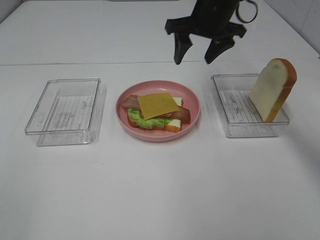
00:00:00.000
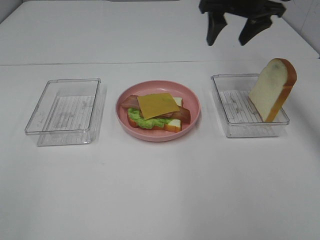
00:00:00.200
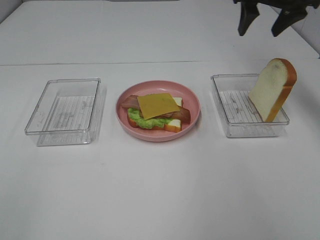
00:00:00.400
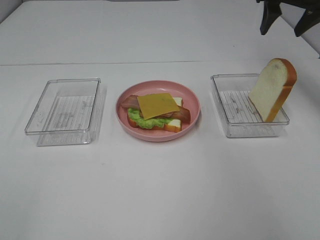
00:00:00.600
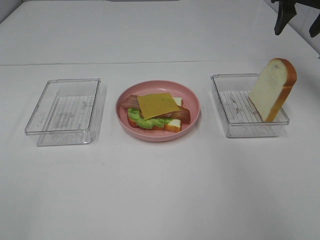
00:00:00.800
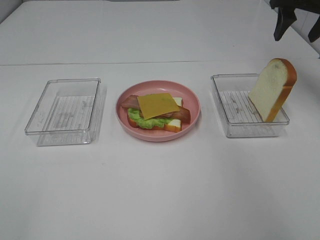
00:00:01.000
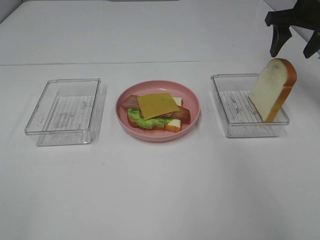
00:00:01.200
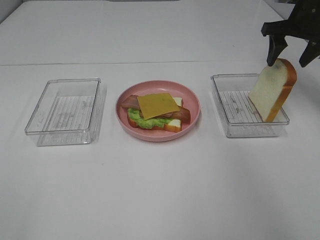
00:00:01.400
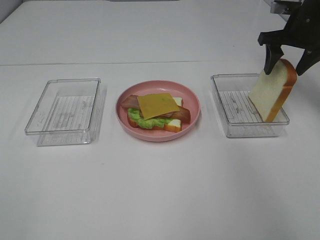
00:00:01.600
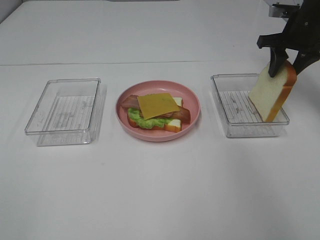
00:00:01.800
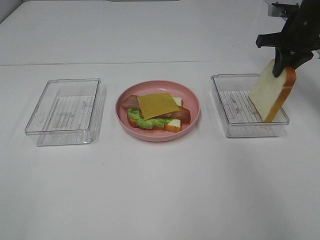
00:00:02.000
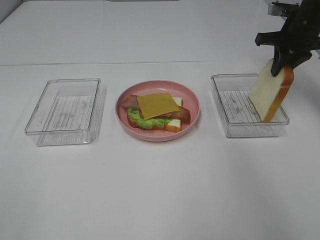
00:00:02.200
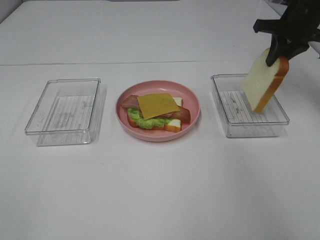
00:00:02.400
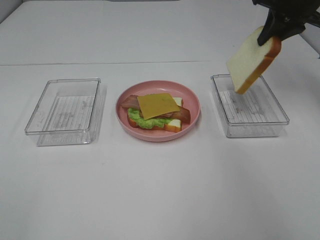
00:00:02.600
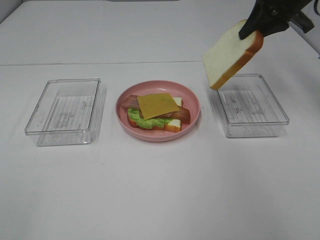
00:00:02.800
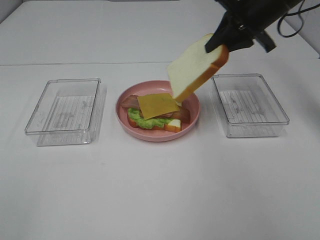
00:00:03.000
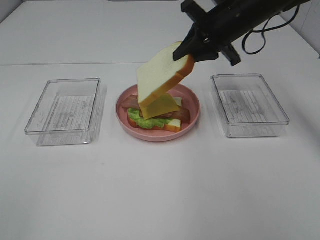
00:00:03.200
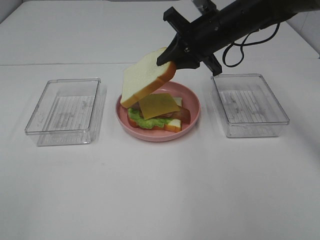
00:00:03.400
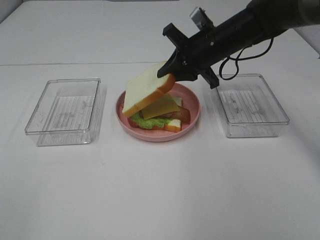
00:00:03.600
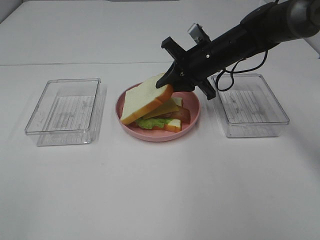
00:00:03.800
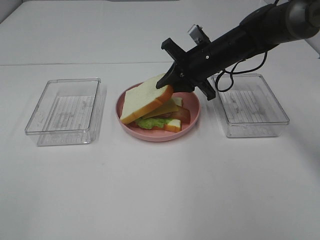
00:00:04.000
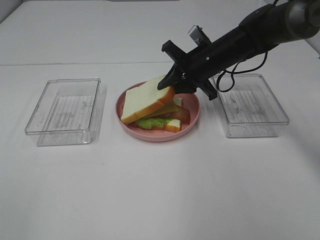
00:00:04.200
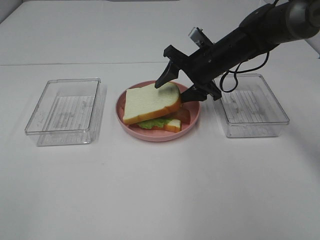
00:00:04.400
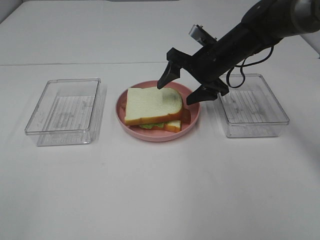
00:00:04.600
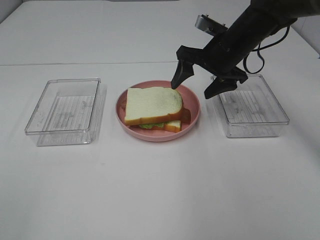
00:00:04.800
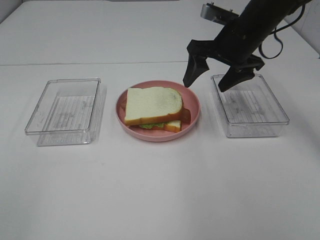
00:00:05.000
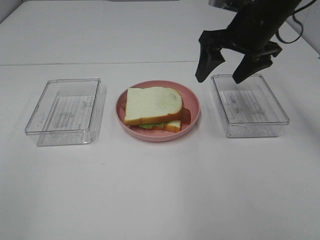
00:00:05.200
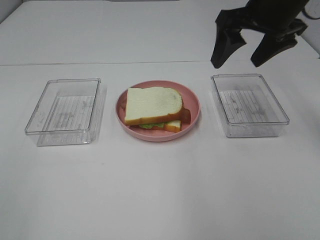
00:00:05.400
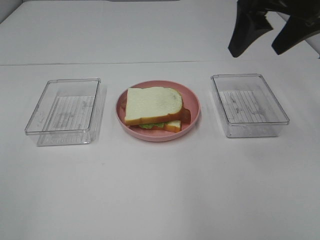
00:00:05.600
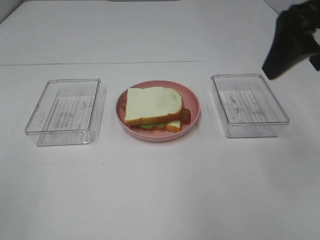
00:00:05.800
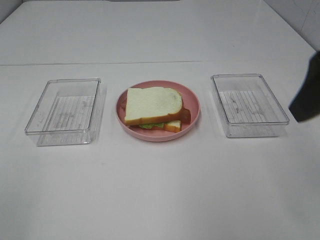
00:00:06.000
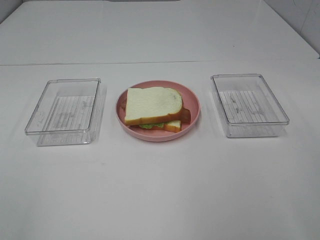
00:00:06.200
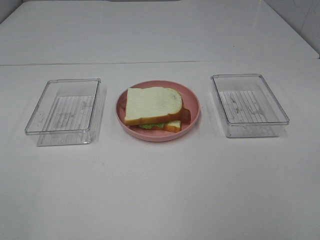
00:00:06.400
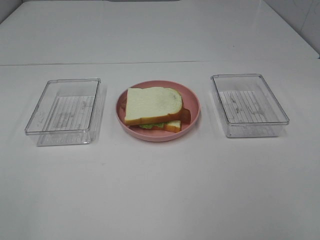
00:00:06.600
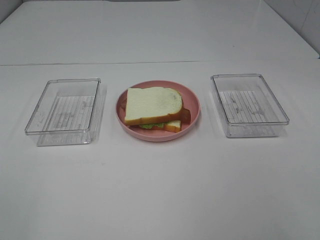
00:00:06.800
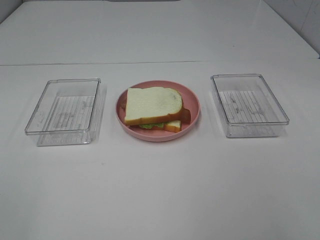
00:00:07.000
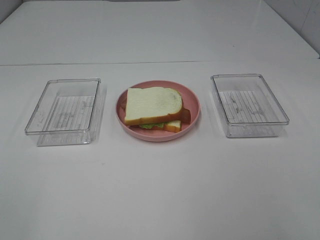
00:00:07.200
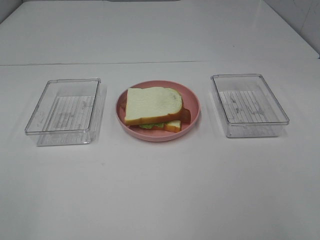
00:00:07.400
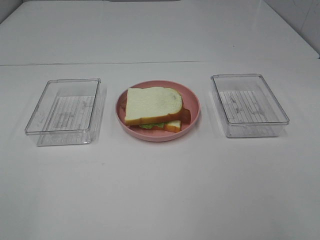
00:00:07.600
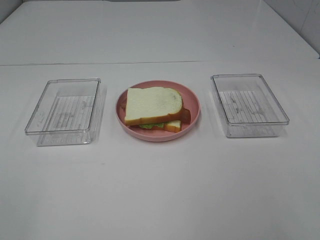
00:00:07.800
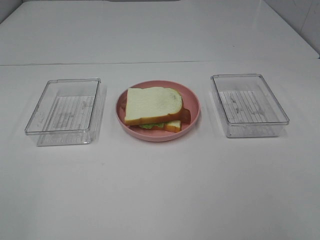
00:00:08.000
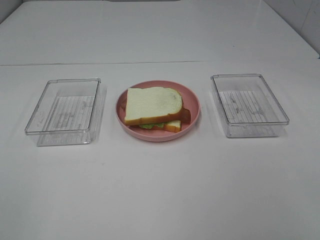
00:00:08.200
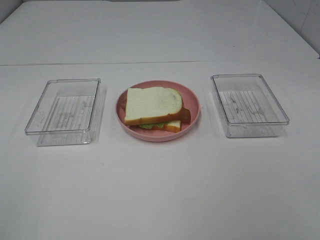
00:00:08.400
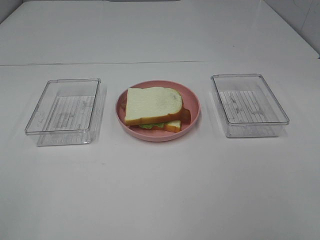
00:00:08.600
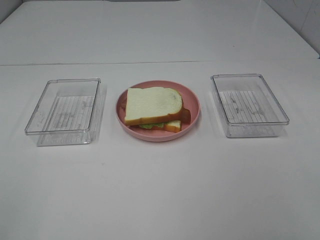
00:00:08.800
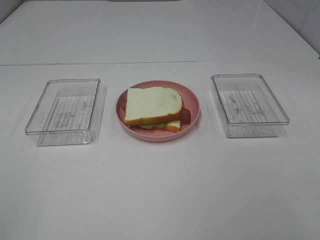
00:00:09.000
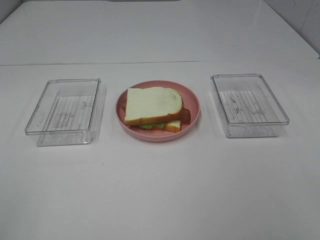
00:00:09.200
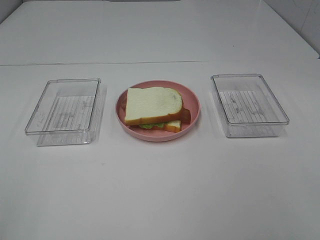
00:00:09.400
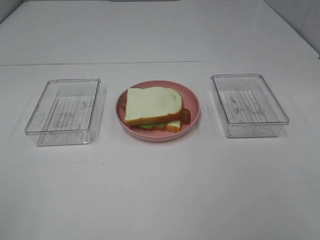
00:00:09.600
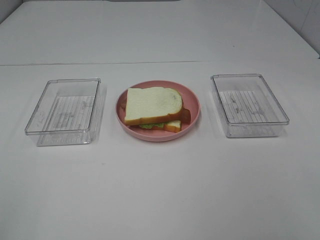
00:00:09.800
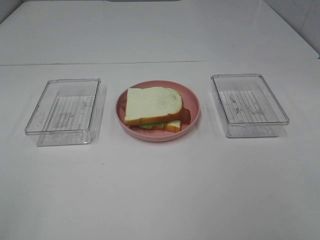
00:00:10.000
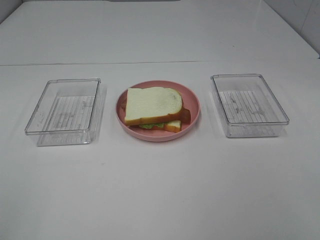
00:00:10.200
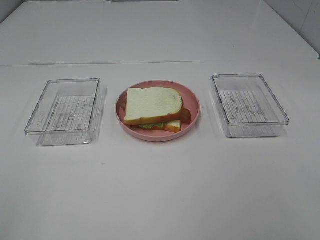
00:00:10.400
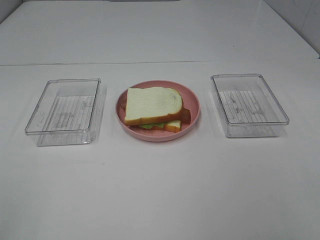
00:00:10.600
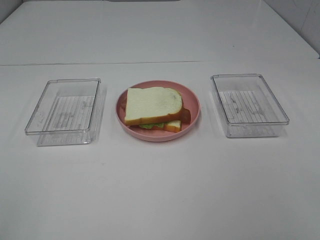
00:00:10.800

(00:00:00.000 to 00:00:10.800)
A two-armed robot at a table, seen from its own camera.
Task of the whole recording: Make sandwiches.
Step, 00:00:00.000 - 00:00:02.200: Right hand:grab the bread slice.
Step, 00:00:02.400 - 00:00:04.800: Right hand:place the bread slice on the cheese slice.
00:00:00.000 - 00:00:01.600: The right gripper shifts about 20 cm to the right.
00:00:01.600 - 00:00:03.000: The right gripper heads to the left, covering approximately 10 cm, and closes up.
00:00:03.000 - 00:00:04.600: The right gripper is displaced downward and to the left by roughly 10 cm, and opens its fingers.
00:00:04.600 - 00:00:06.200: The right gripper goes some 35 cm backward and upward.
00:00:09.200 - 00:00:10.800: Neither gripper changes place.

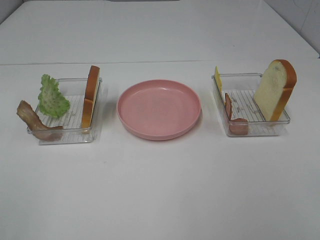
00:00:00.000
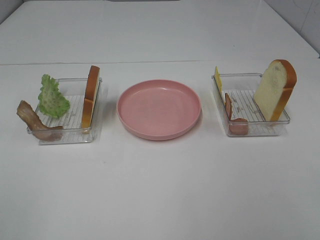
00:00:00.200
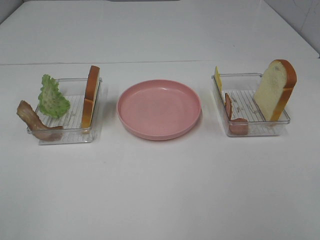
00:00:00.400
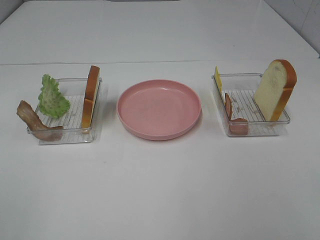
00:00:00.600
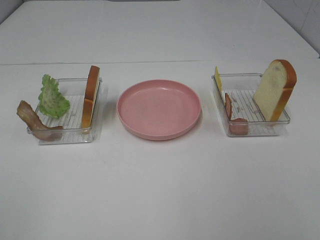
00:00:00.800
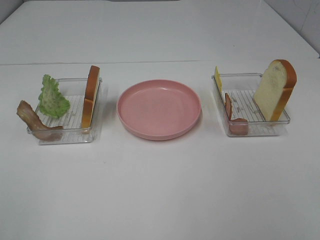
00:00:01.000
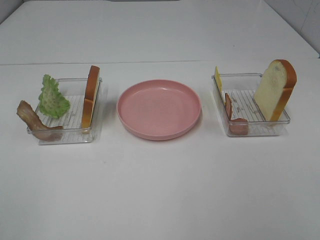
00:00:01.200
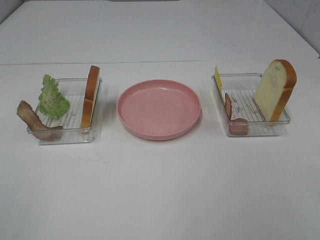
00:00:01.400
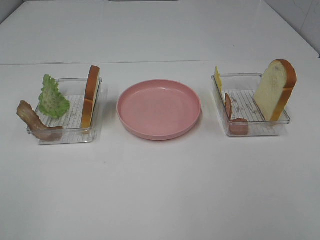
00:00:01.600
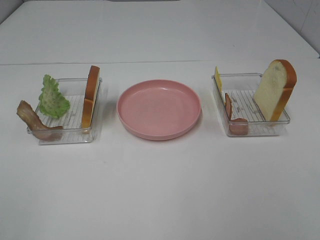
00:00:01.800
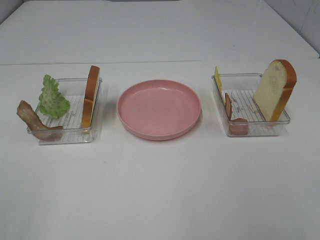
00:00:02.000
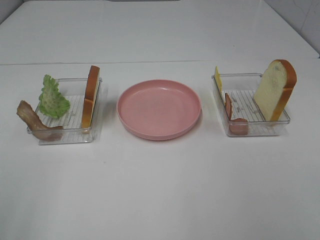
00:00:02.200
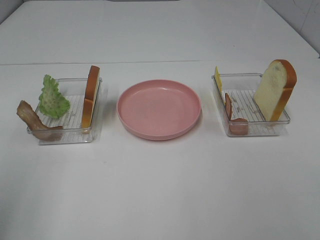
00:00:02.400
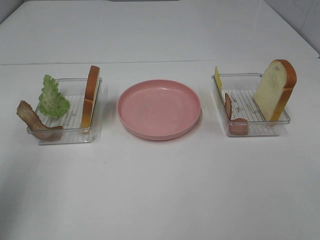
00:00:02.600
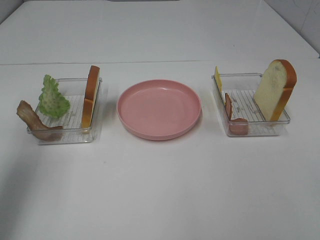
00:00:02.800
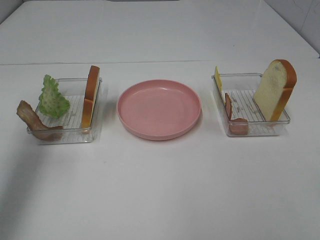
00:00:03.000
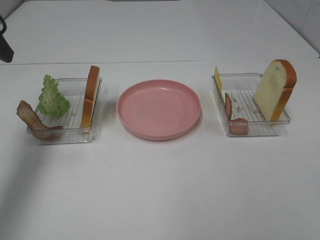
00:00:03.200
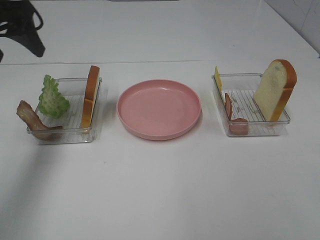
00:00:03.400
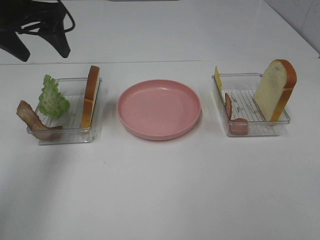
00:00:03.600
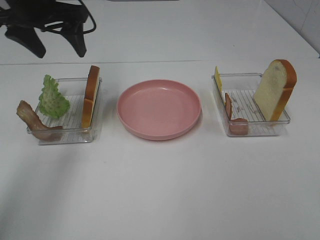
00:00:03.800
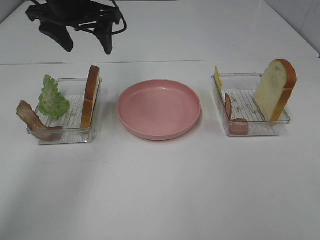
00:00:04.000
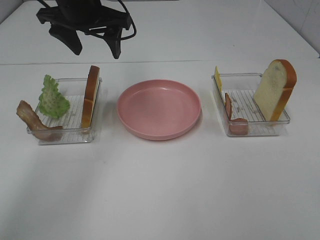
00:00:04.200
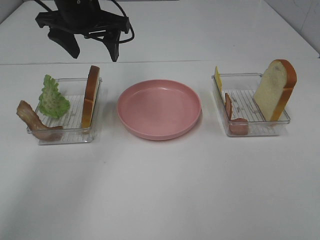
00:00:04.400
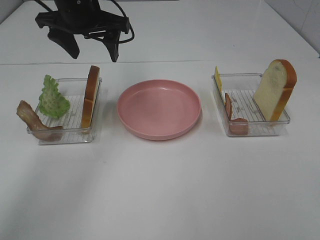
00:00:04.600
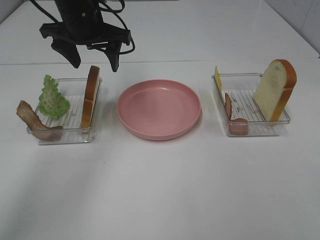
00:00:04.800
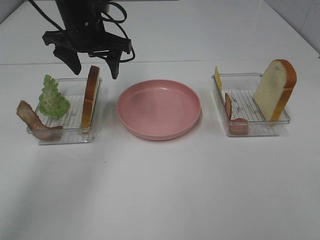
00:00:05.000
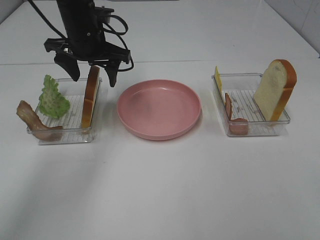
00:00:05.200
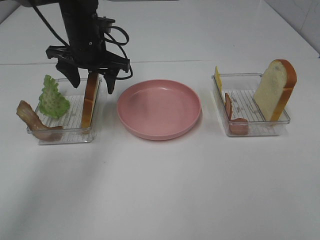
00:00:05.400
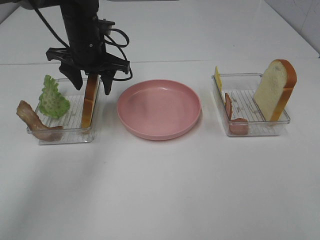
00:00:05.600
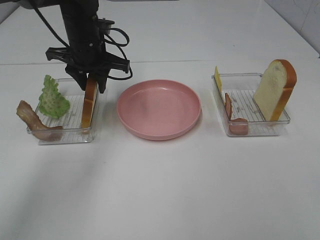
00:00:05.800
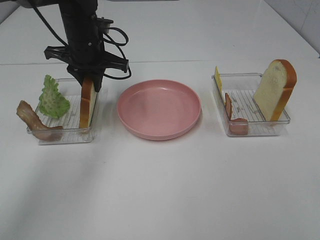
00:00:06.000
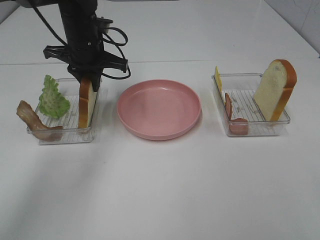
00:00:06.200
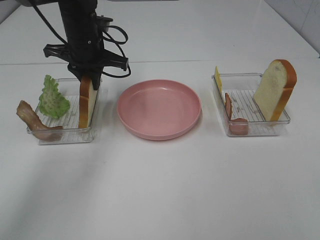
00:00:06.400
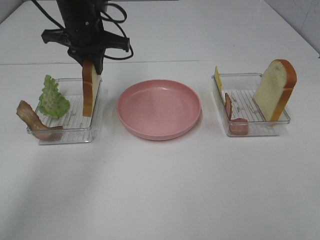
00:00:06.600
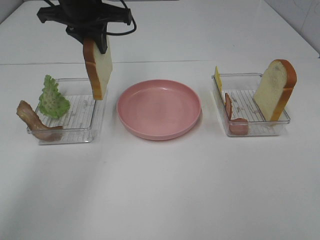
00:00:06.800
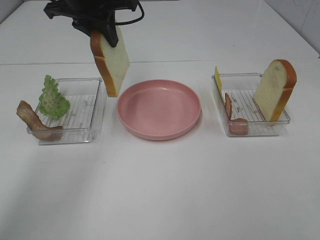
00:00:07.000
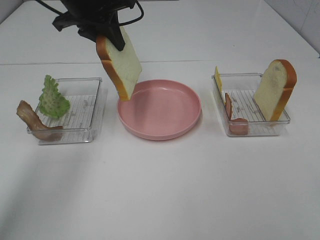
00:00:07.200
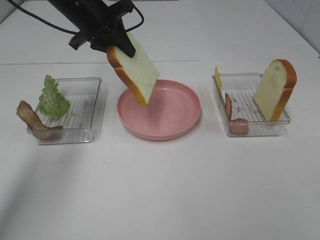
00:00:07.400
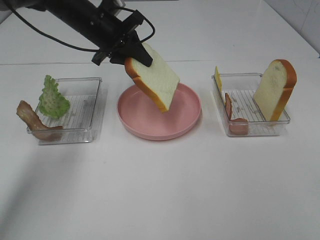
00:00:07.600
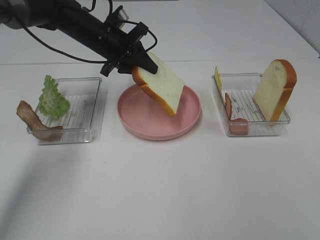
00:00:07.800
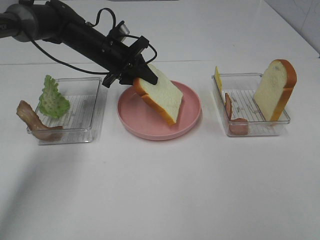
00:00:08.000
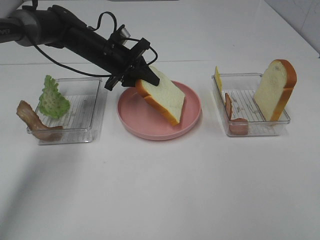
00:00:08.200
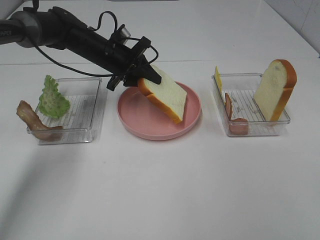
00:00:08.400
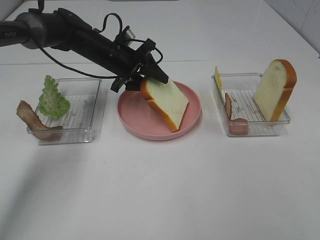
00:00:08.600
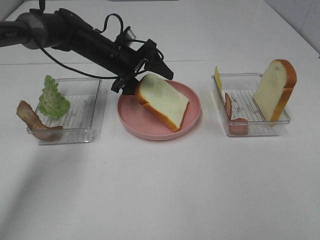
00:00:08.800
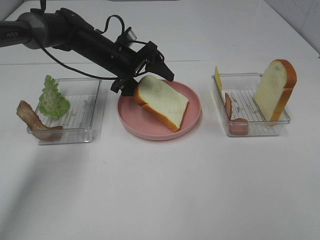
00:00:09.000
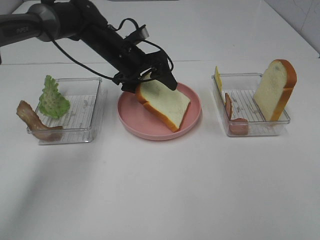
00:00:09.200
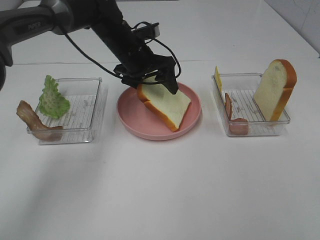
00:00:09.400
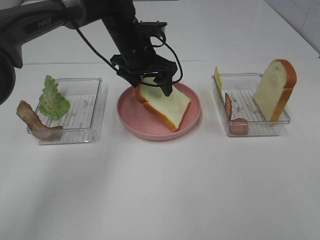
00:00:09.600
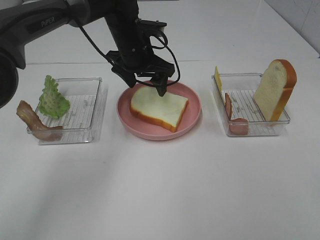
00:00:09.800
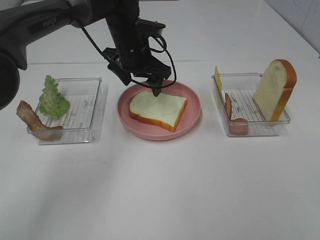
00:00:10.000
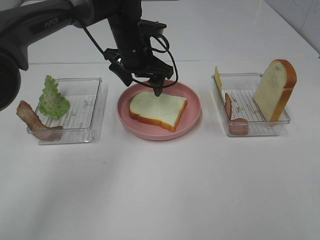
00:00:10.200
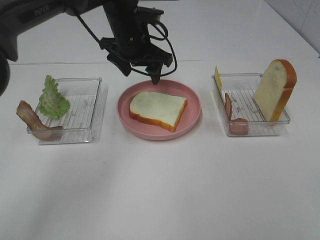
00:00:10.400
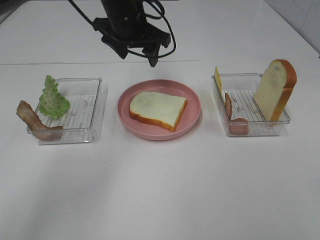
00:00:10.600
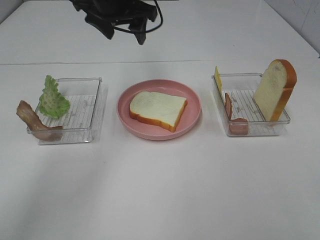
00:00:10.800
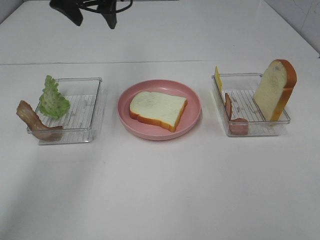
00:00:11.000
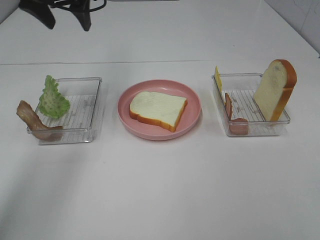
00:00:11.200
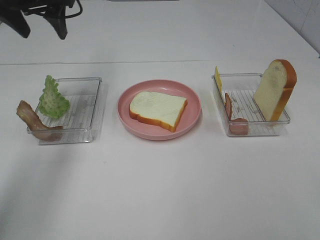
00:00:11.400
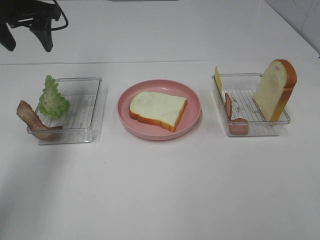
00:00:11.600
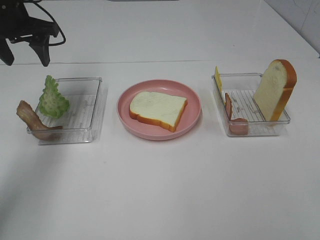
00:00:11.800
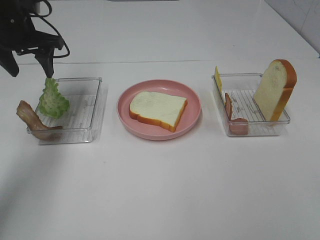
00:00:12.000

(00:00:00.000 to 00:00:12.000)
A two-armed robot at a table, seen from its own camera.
Task of the whole recording: Make sandwiches.
Step, 00:00:00.000 - 00:00:06.000: Left hand:grab the bread slice.
Step, 00:00:06.200 - 00:00:09.800: Left hand:place the bread slice on the plate.
00:00:00.000 - 00:00:01.600: Neither gripper changes place.
00:00:01.600 - 00:00:03.000: The left gripper goes roughly 25 cm forward.
00:00:03.000 - 00:00:04.400: The left gripper is displaced to the right and forward by some 25 cm.
00:00:04.400 - 00:00:06.000: The left gripper heads downward, covering some 10 cm, and closes.
00:00:06.000 - 00:00:07.600: The left gripper travels upward and back again, roughly 10 cm each way.
00:00:07.600 - 00:00:09.000: The left gripper moves downward, approximately 5 cm, and opens.
00:00:09.000 - 00:00:10.400: The left gripper heads upward and to the right, covering about 10 cm.
00:00:10.400 - 00:00:12.000: The left gripper heads to the left, covering some 20 cm.
